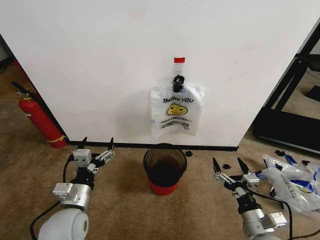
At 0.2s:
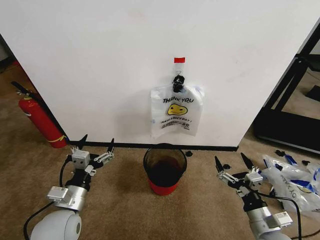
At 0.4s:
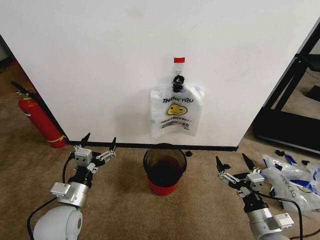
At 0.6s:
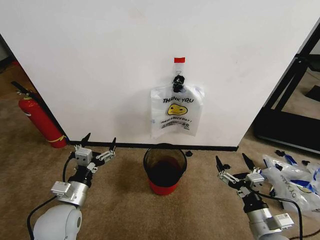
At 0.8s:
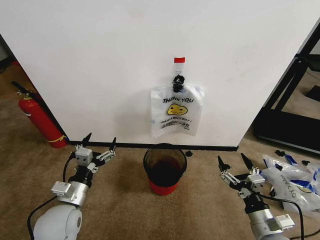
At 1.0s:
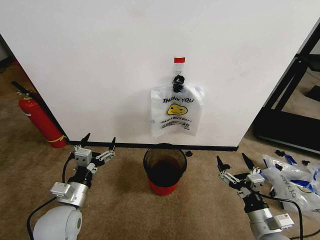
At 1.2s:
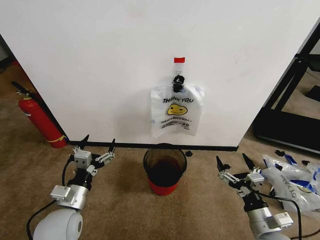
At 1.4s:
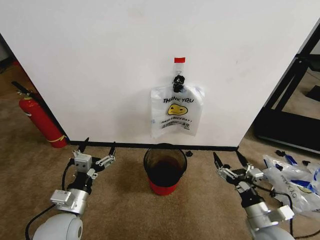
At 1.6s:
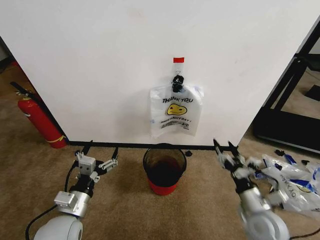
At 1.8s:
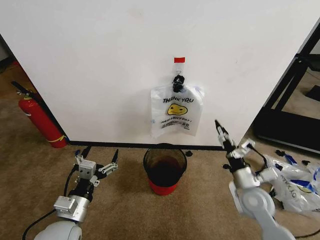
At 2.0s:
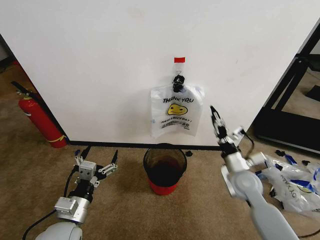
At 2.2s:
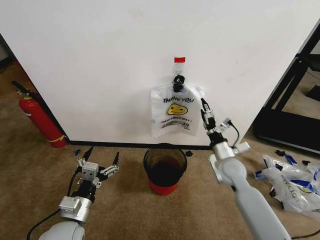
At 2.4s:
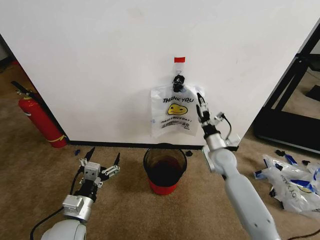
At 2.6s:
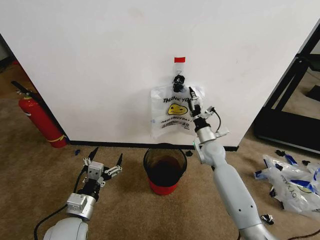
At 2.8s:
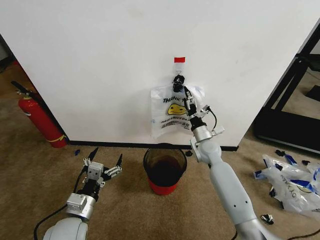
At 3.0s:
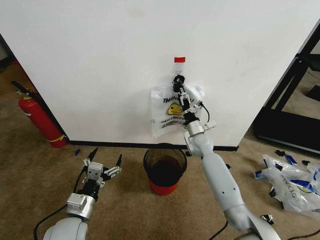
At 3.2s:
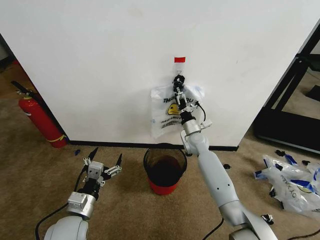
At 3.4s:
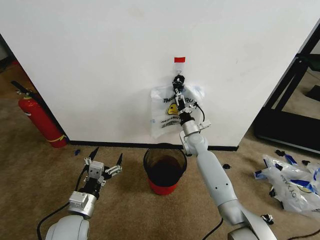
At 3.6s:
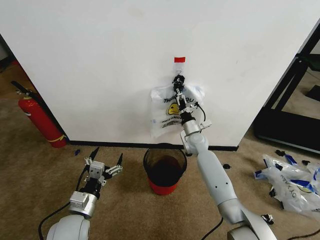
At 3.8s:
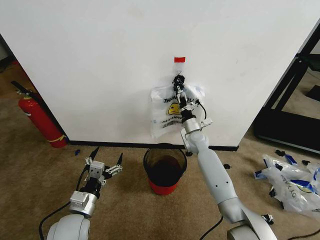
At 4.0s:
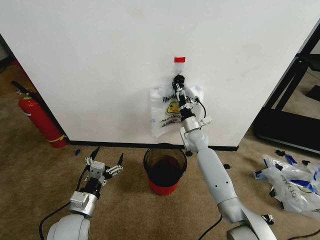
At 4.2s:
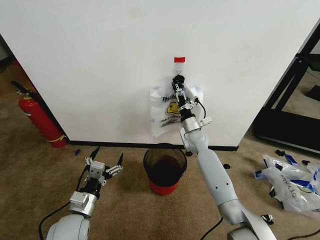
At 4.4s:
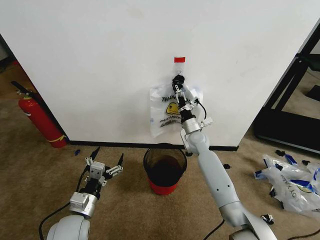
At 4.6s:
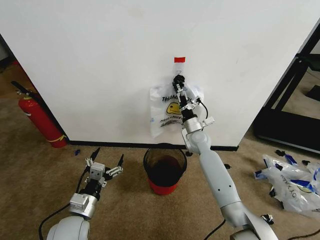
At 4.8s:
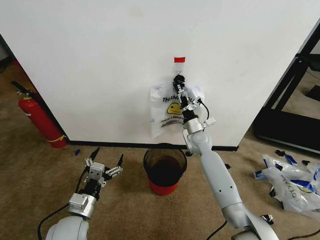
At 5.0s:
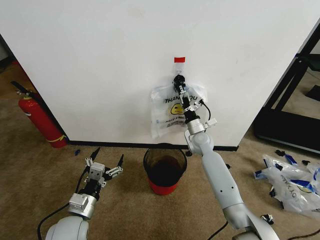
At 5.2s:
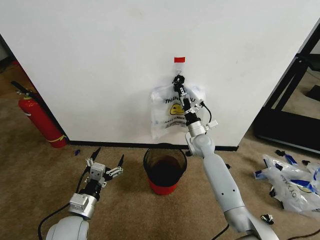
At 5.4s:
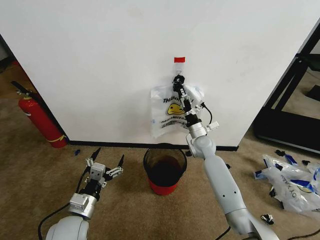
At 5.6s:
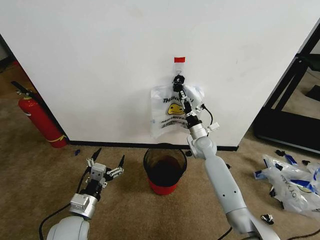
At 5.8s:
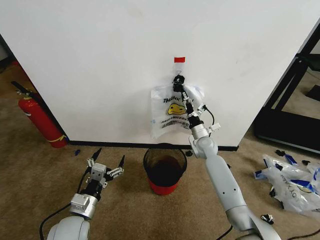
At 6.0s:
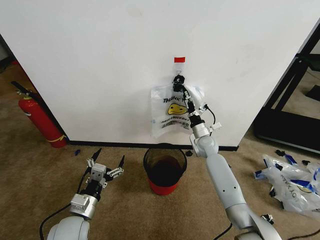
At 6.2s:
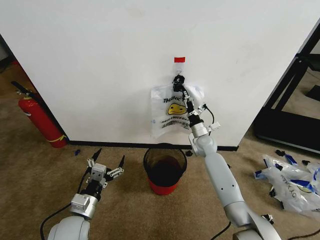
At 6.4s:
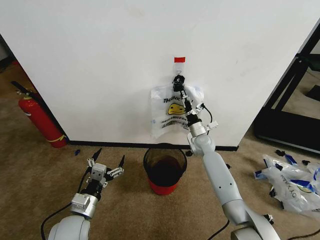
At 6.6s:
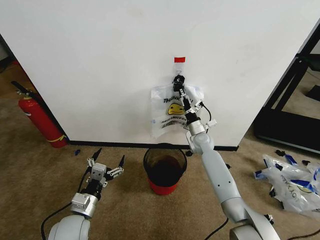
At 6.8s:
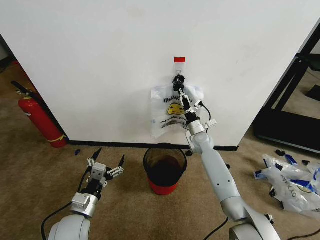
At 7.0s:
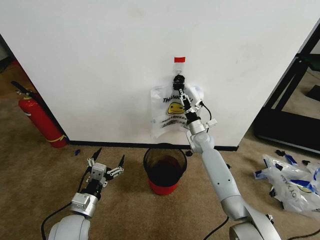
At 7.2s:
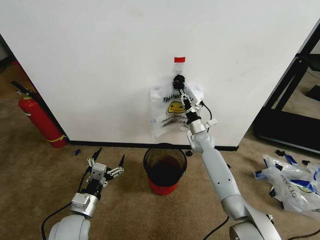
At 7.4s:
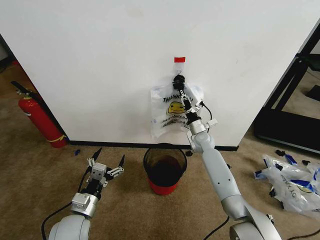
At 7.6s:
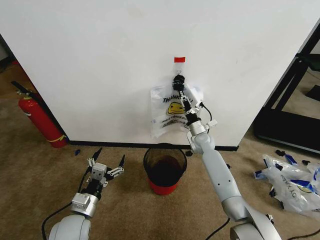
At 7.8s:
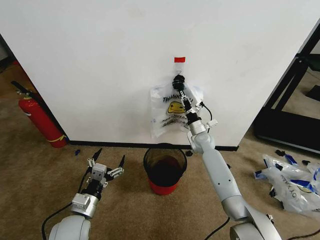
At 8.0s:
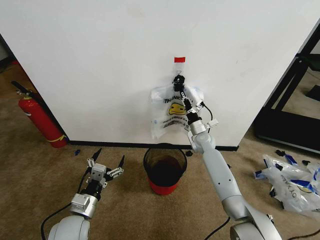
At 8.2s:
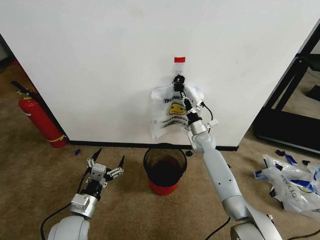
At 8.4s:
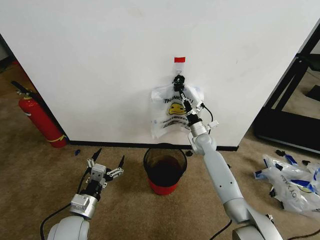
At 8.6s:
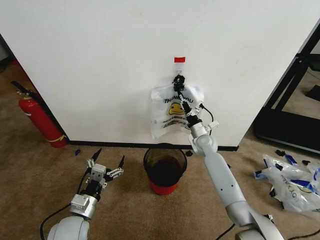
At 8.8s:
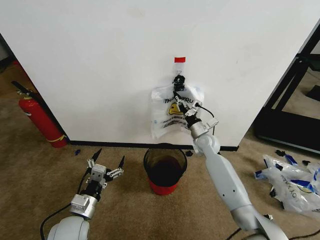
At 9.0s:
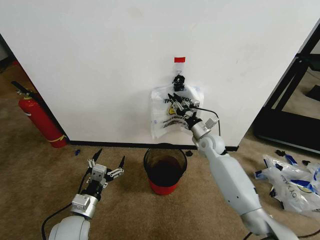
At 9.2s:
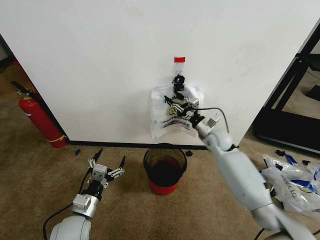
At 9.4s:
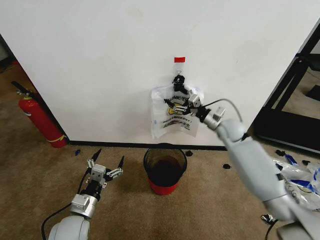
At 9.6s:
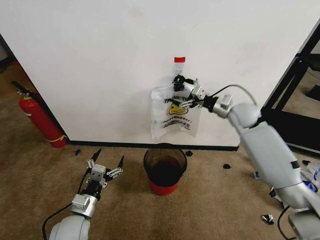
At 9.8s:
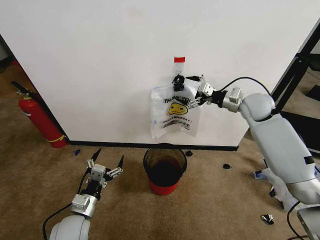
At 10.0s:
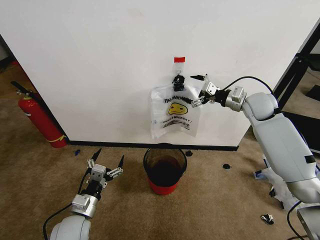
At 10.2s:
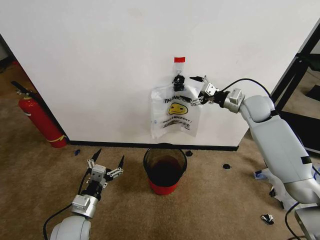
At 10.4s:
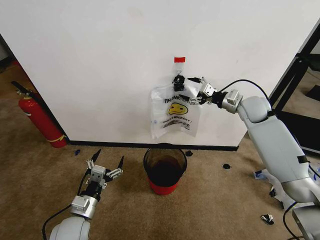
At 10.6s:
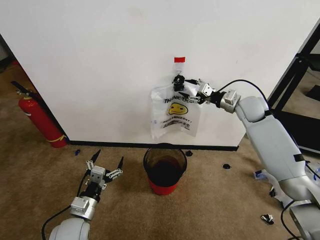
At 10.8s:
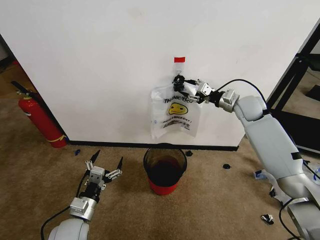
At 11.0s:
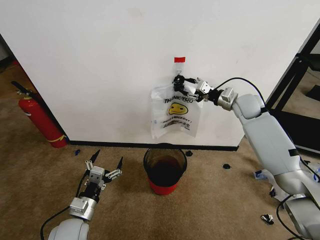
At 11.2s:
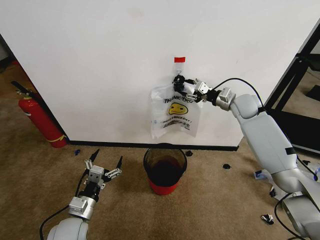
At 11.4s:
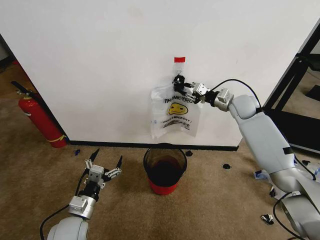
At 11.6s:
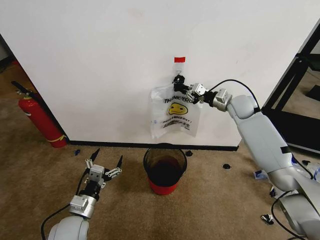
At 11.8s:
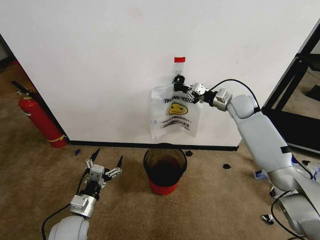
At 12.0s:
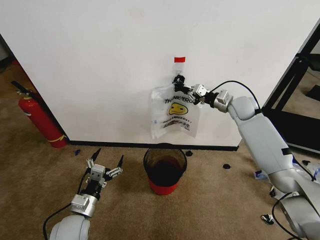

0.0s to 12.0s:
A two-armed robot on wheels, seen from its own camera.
Task of the whole recording: Pick up the garbage bag from the wall and place it over the trash bin.
1.6s to 3.0s: The right gripper moves forward and to the left, some 30 cm.
3.0s to 4.4s: The grippers move only a little.
4.4s to 6.0s: The right gripper changes place by about 5 cm.
6.0s to 7.6s: The right gripper closes its fingers.
7.6s to 9.0s: The right gripper ends up roughly 5 cm from where it was.
9.0s to 10.4s: The right gripper travels upward and to the right by about 20 cm.
10.4s to 12.0s: The right gripper closes.

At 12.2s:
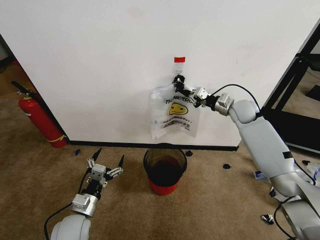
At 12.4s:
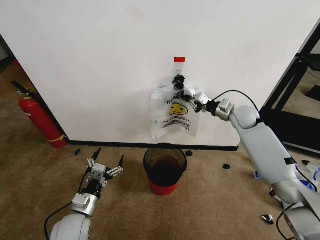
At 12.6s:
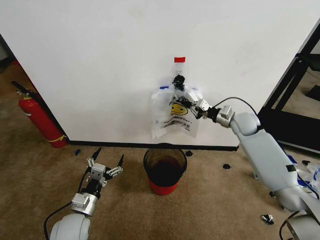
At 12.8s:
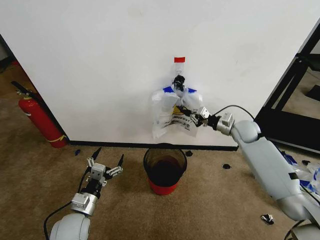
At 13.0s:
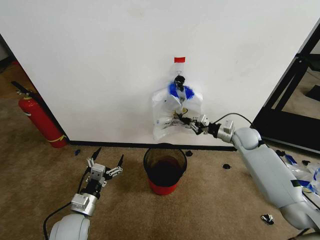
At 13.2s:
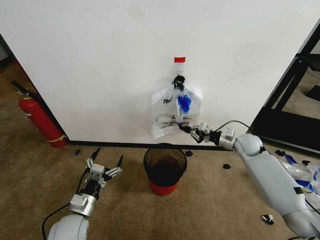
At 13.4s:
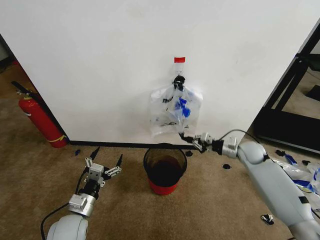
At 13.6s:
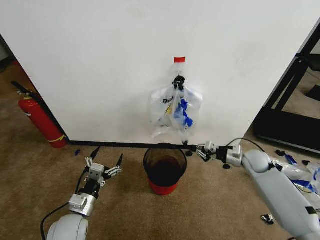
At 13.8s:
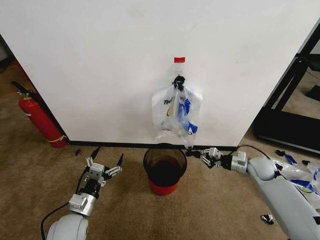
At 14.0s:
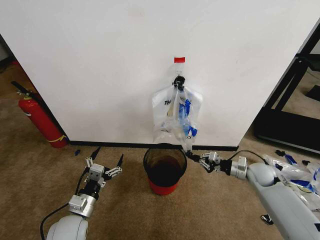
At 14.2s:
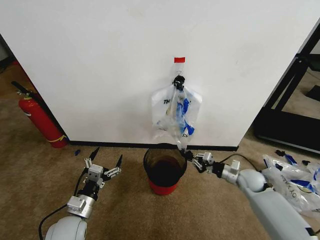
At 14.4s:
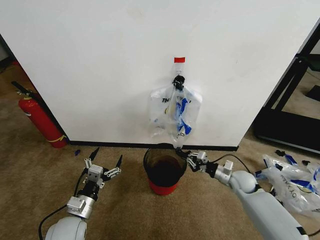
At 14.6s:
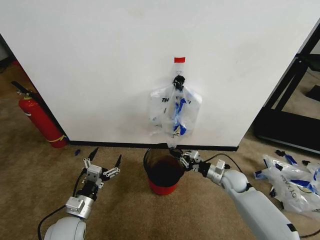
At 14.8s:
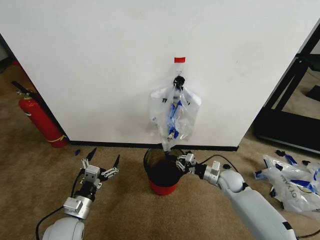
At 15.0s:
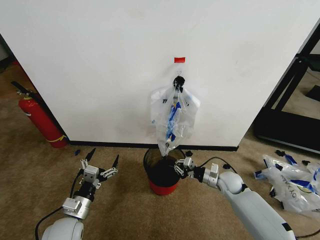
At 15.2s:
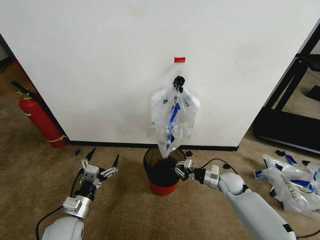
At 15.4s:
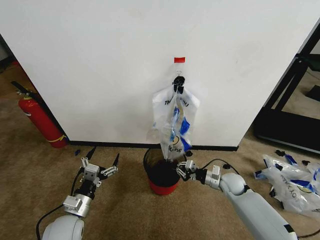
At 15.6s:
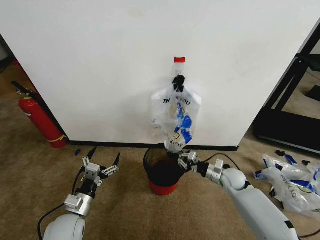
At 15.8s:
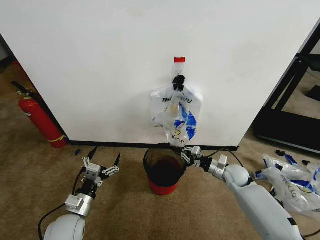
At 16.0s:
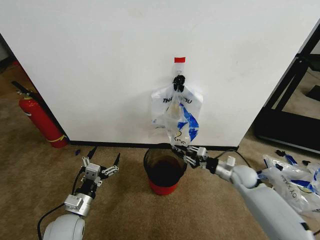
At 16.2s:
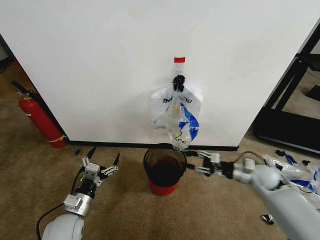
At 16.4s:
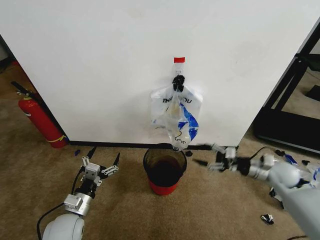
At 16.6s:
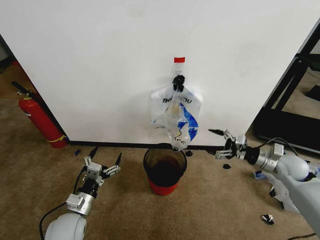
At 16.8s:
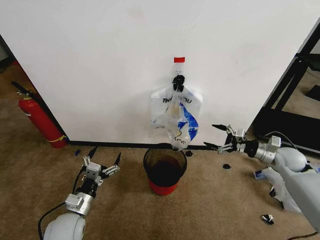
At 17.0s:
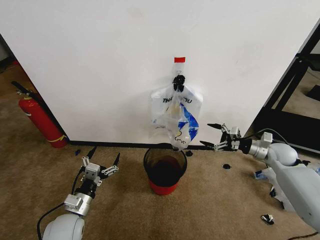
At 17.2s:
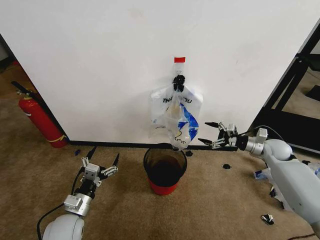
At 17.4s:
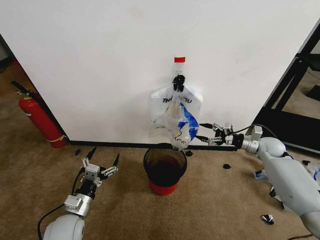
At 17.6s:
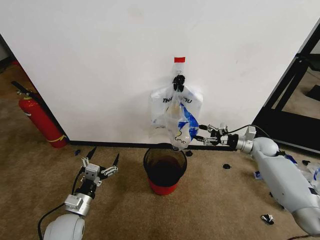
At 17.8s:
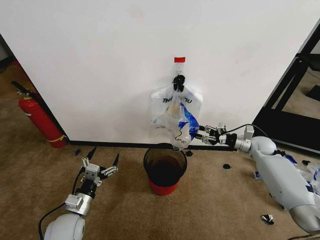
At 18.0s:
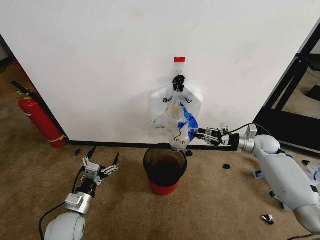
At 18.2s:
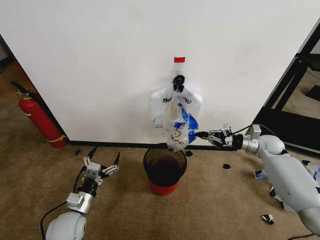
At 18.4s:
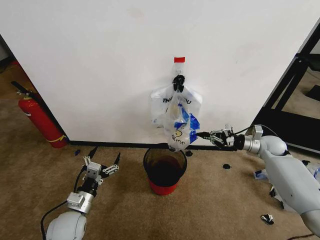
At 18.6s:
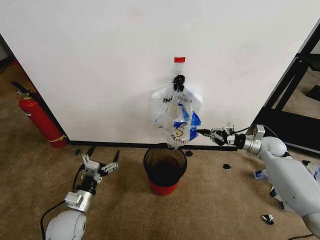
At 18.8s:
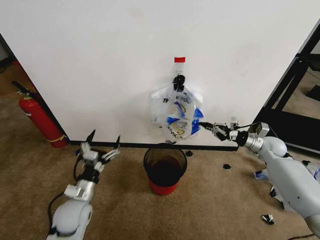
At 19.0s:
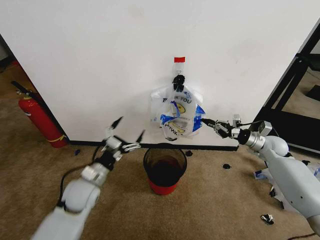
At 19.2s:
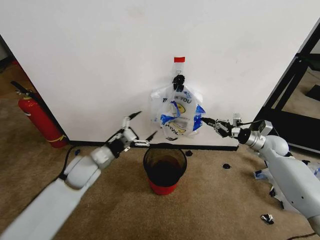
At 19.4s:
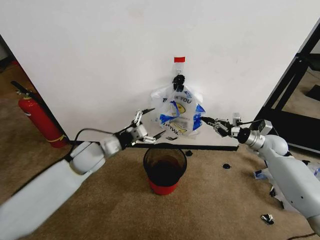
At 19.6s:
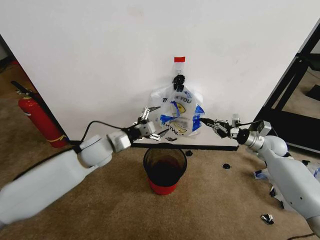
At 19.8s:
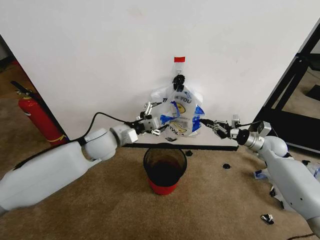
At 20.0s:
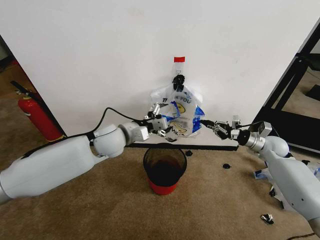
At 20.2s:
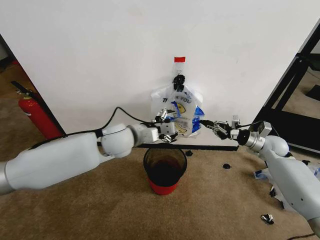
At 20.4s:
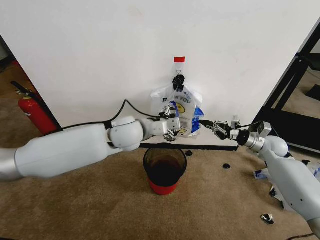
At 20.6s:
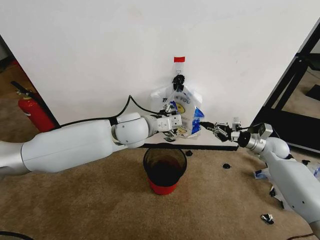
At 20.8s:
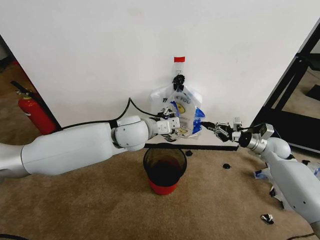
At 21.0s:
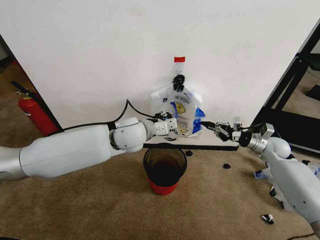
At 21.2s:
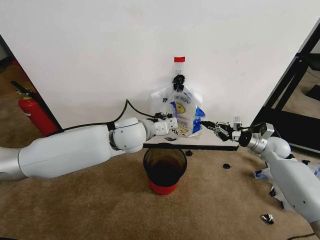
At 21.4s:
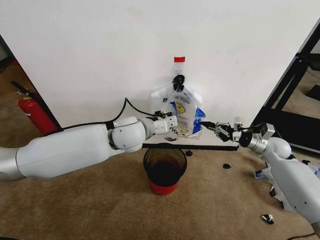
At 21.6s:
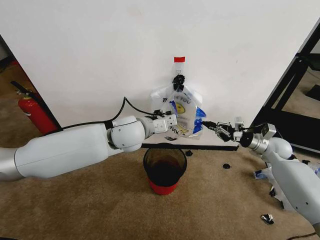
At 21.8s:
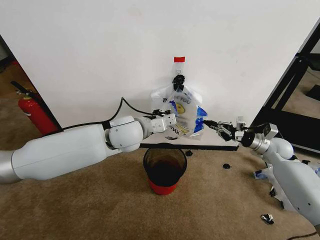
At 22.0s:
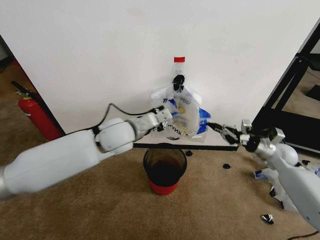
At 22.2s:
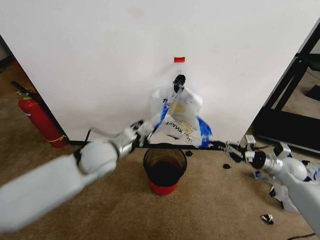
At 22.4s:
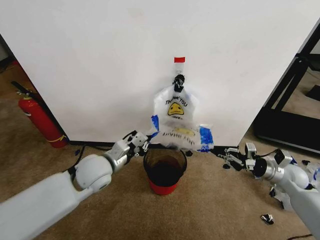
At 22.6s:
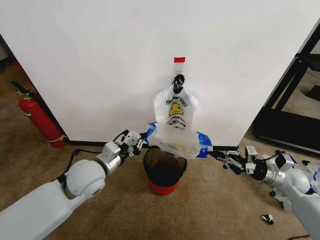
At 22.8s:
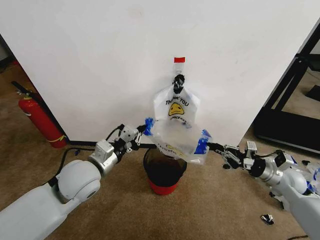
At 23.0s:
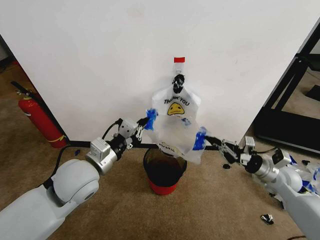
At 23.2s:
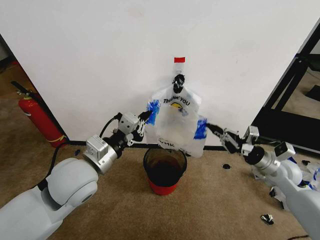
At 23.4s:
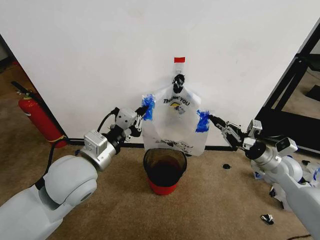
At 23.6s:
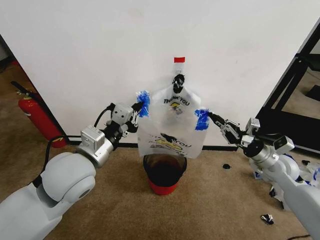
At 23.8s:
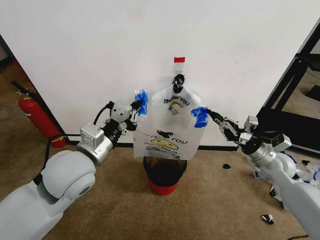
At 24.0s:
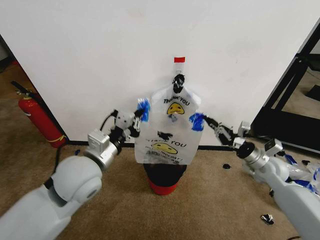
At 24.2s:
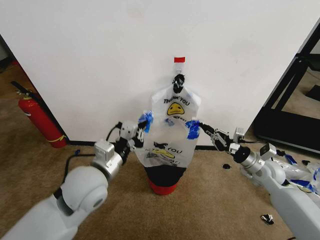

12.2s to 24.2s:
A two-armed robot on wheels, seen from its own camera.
Task of the whole recording: Pick up the garbage bag from the wall and place it over the trash bin.
12.2s to 13.8s: The right gripper is displaced downward, backward and to the right by approximately 25 cm.
13.8s to 15.2s: The right gripper goes some 15 cm to the left and downward.
15.2s to 16.6s: The right gripper goes some 20 cm to the right and upward, and opens.
16.6s to 18.2s: The right gripper shifts approximately 10 cm forward, and closes its fingers.
18.2s to 19.8s: The left gripper goes some 30 cm forward, upward and to the right.
19.8s to 21.2s: The left gripper is displaced to the right and upward by approximately 10 cm, and closes.
21.2s to 22.6s: The right gripper moves backward, approximately 10 cm; the left gripper shifts some 15 cm to the left, backward and downward, and closes its fingers.
22.6s to 24.2s: The right gripper shifts about 5 cm to the left.
